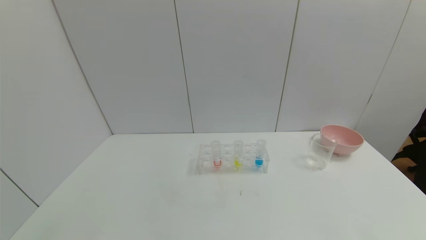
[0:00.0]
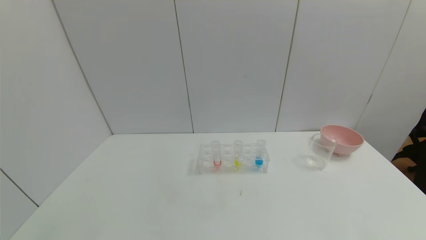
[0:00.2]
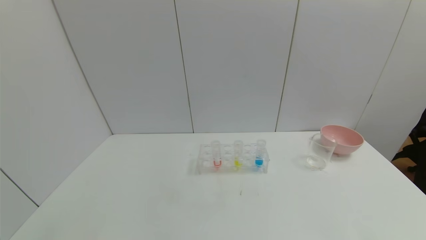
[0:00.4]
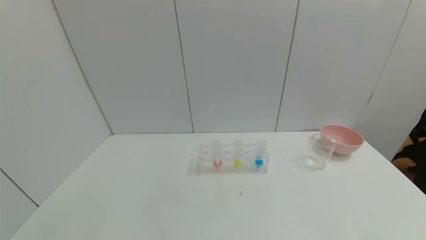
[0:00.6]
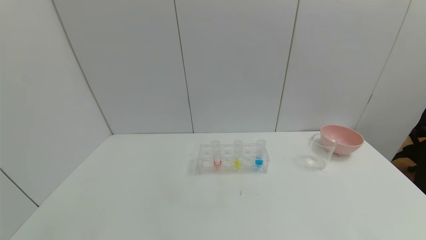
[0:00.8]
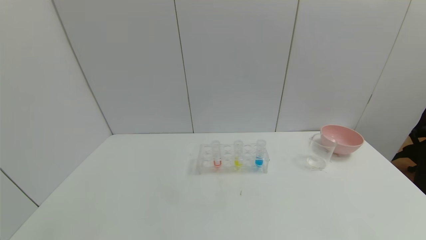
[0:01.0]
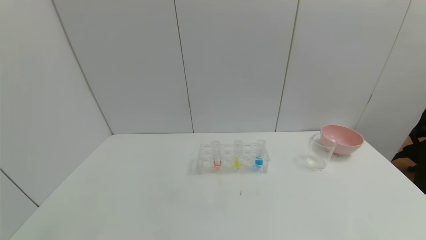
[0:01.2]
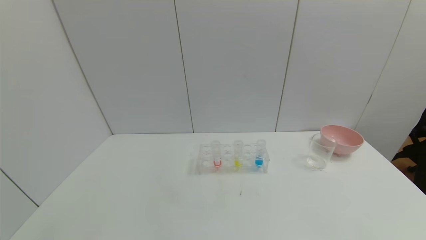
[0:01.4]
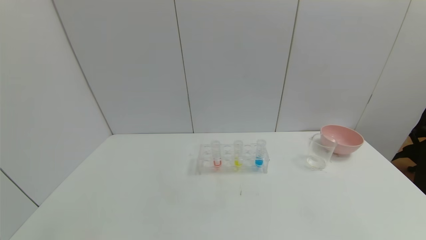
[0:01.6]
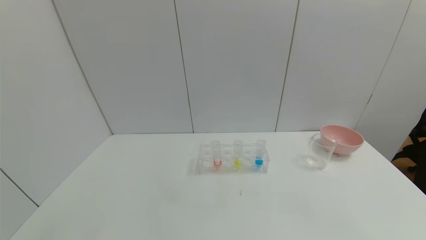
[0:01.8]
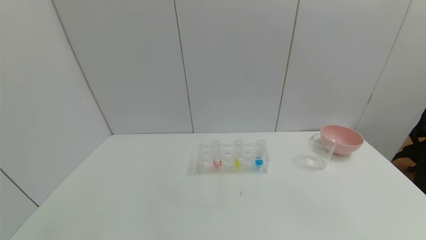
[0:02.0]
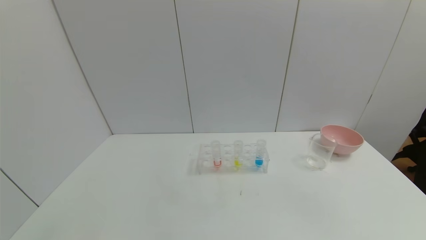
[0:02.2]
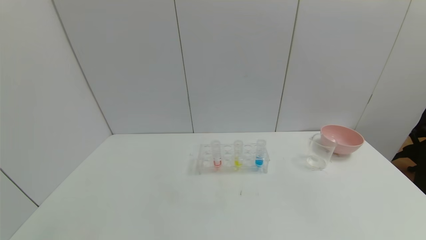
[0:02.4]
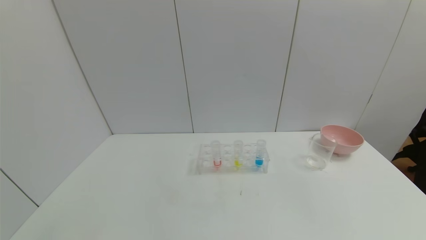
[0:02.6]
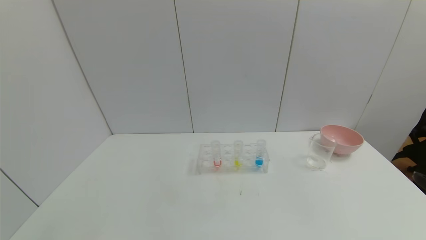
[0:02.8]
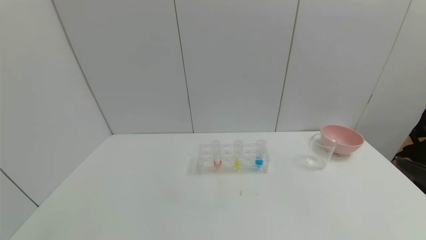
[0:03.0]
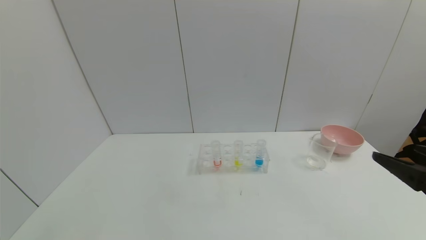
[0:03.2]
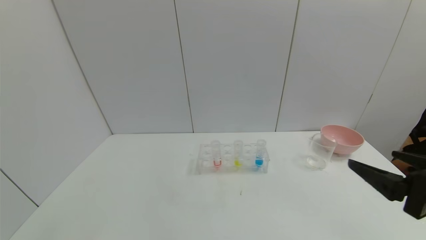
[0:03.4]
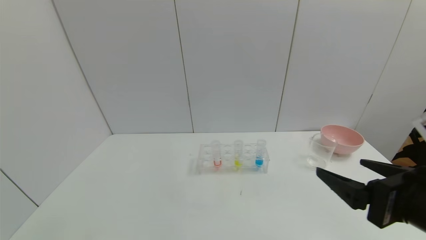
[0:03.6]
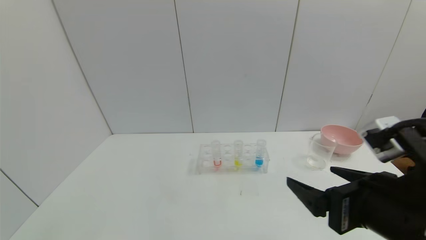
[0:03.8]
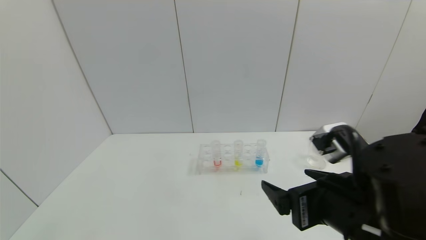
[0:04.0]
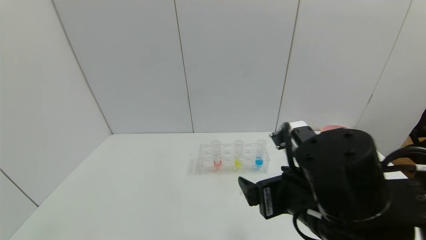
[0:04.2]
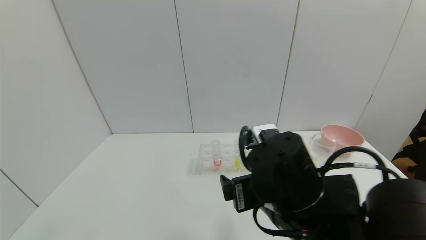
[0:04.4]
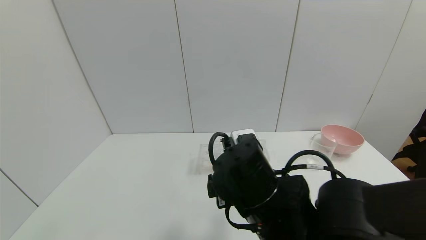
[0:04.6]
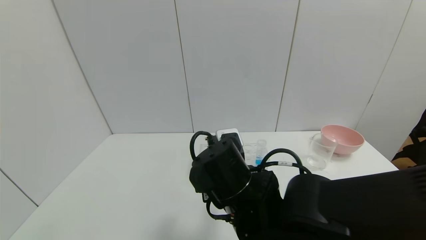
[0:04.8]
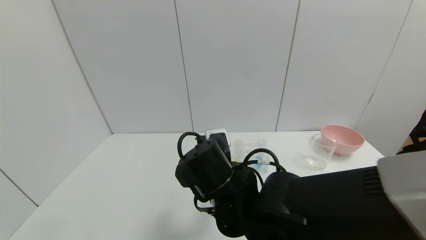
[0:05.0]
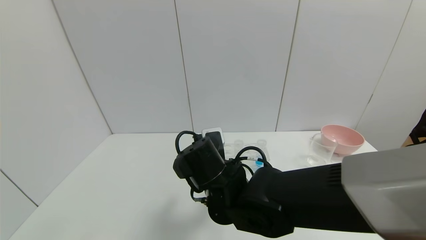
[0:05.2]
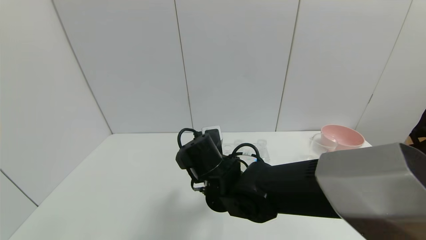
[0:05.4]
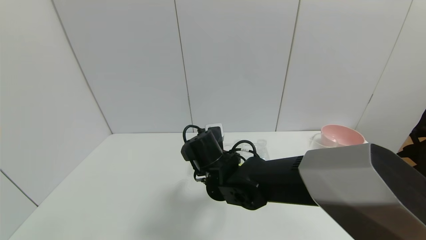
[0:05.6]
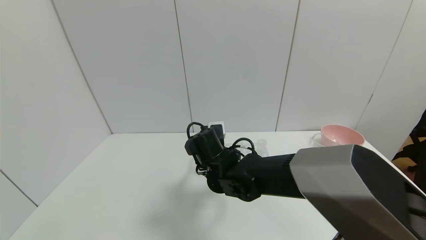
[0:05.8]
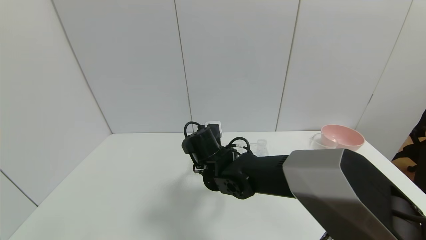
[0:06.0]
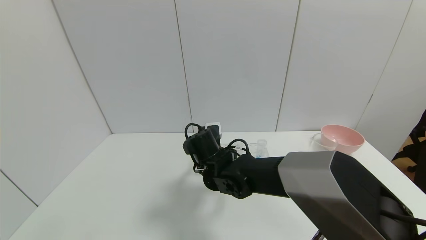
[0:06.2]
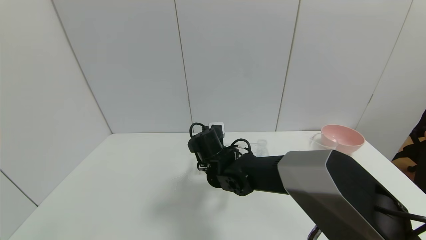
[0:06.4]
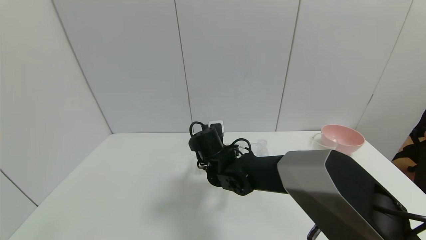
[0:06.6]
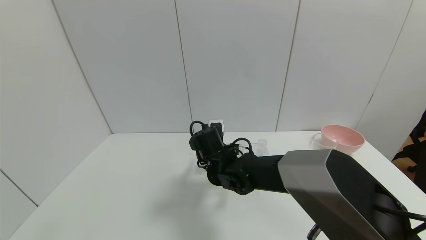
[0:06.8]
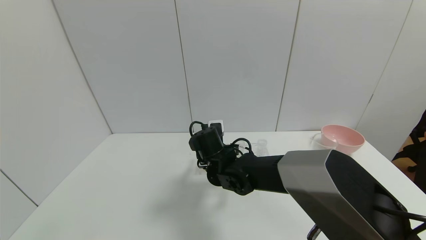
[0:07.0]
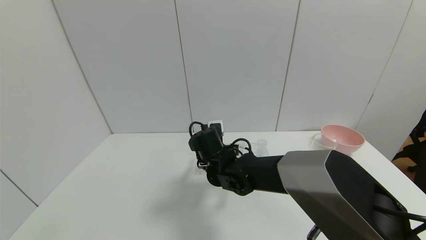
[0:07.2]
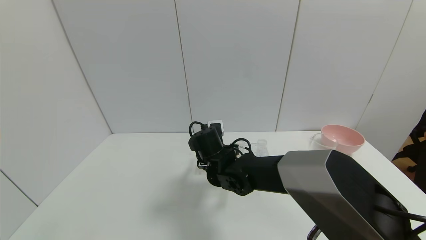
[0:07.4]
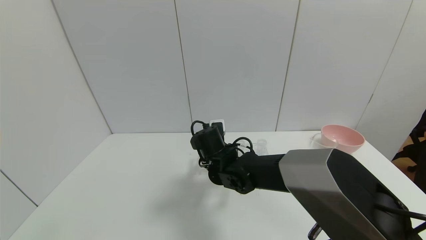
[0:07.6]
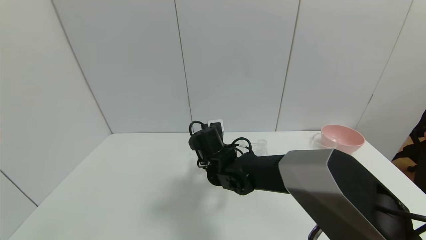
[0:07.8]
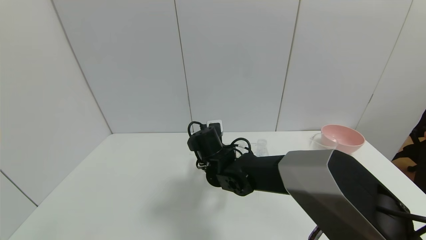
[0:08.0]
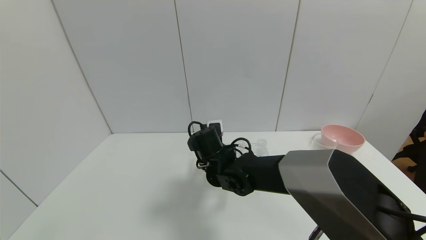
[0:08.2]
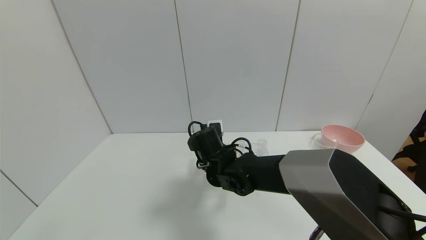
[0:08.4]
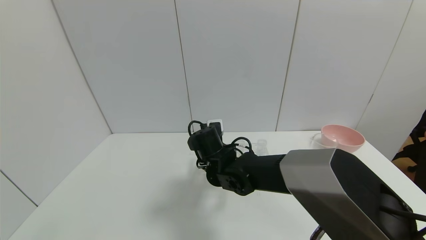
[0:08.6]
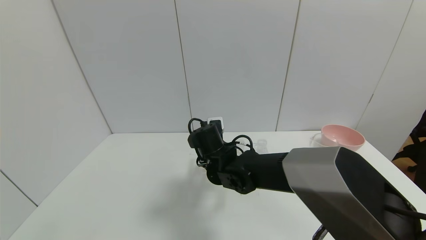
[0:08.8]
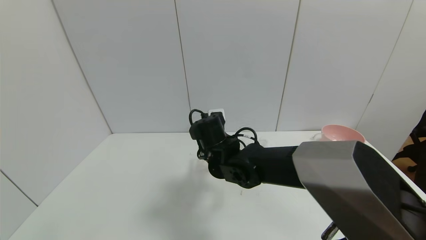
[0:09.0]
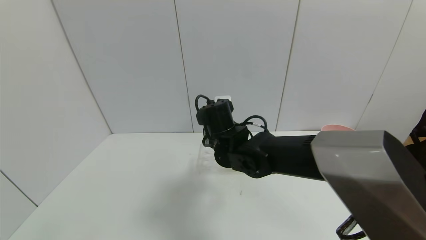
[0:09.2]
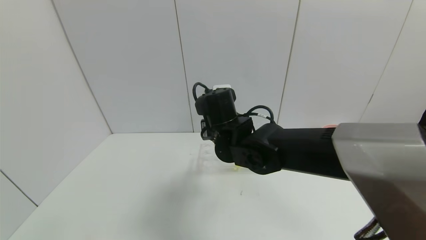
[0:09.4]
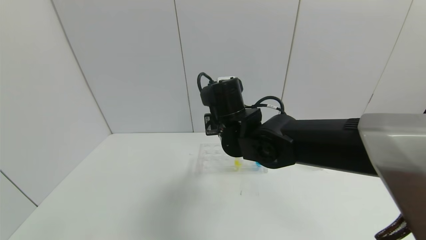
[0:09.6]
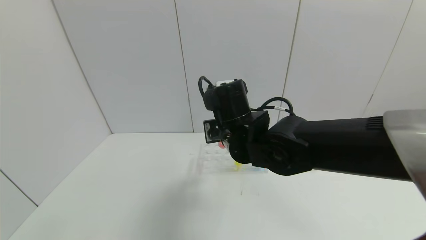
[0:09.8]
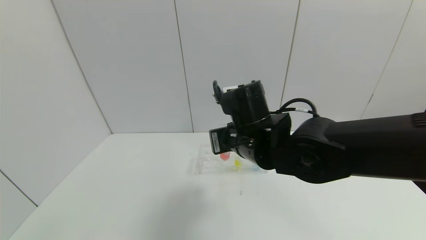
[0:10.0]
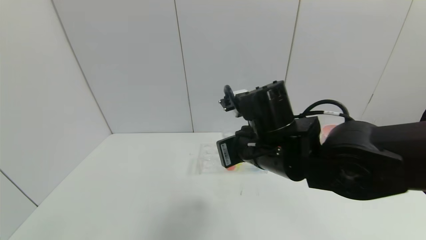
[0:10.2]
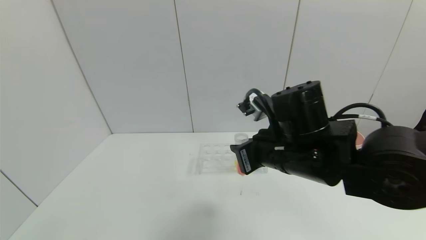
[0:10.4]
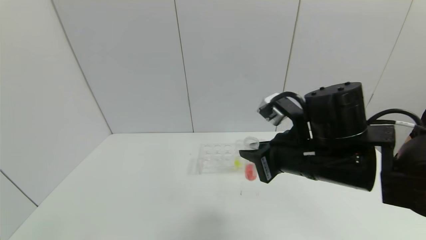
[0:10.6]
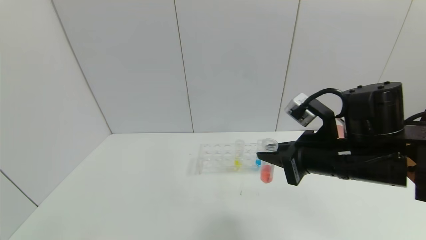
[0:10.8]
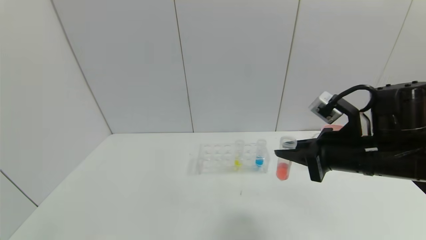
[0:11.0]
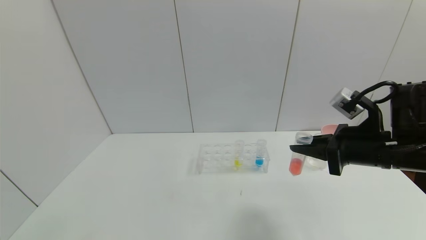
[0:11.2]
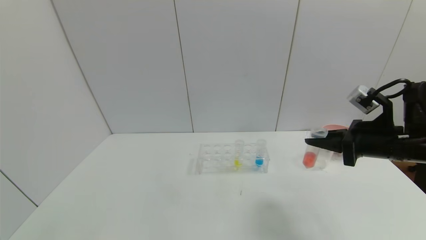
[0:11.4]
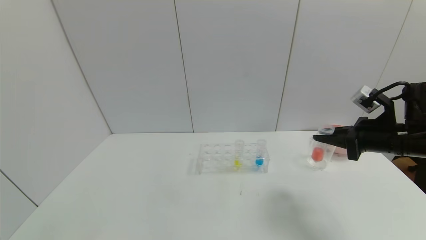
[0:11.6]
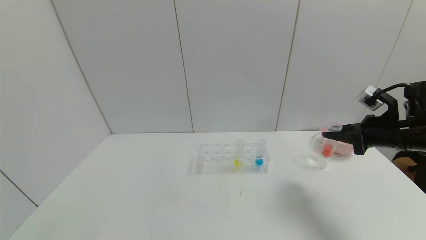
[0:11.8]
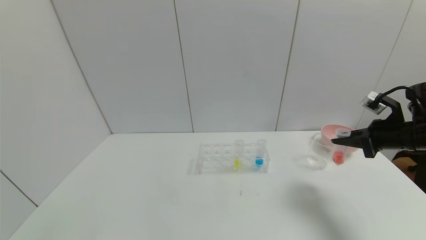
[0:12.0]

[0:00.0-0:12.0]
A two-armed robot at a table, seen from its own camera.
Task of the whole recording: pick up the test tube with yellow pigment and the test tube with red pigment by grippers and pour them into the beaker.
Step, 0:00.0 to 0:08.2: Grasp the red reagent with the right gripper.
0:03.0 to 0:04.4: The right gripper moves to the left, about 25 cm.
0:04.4 to 0:06.0: The right gripper travels forward, to the left and downward by about 20 cm.
0:06.0 to 0:07.6: The right gripper closes.
0:07.6 to 0:09.0: The right gripper closes its fingers.
0:09.0 to 0:10.4: The right gripper heads to the right, backward and upward, covering roughly 20 cm.
0:10.4 to 0:12.0: The right gripper goes roughly 30 cm to the right.

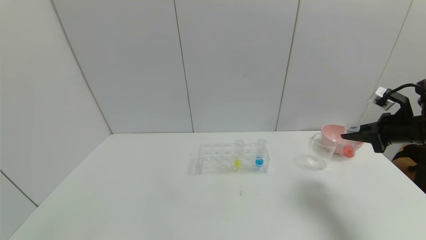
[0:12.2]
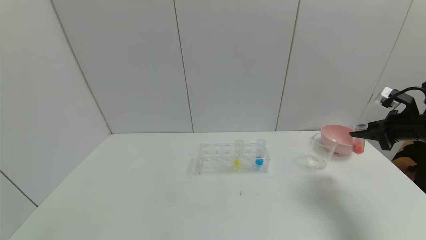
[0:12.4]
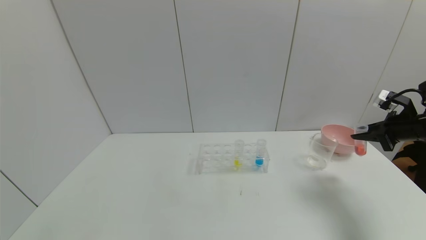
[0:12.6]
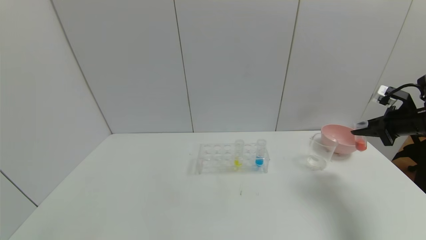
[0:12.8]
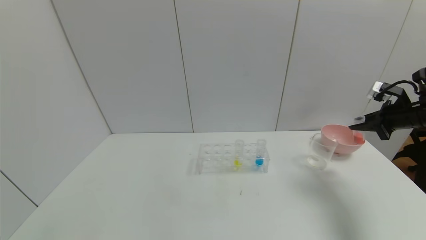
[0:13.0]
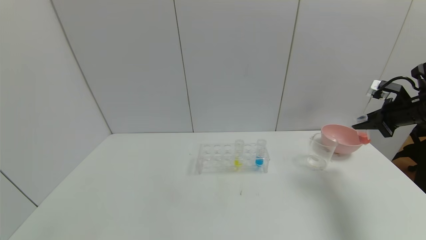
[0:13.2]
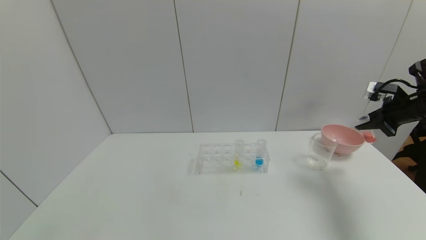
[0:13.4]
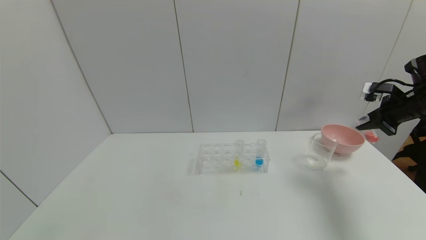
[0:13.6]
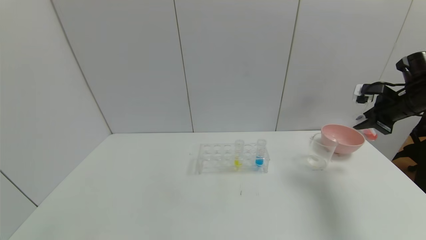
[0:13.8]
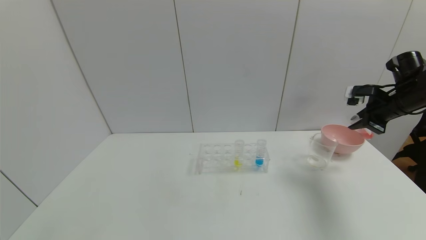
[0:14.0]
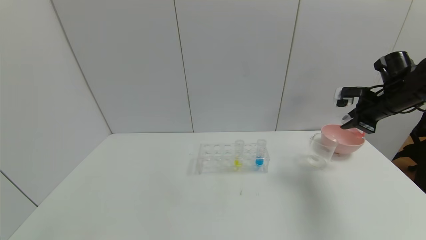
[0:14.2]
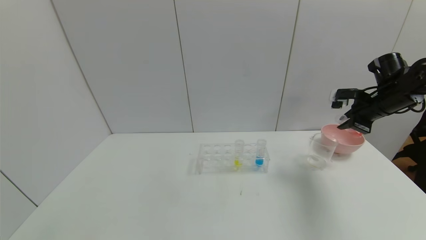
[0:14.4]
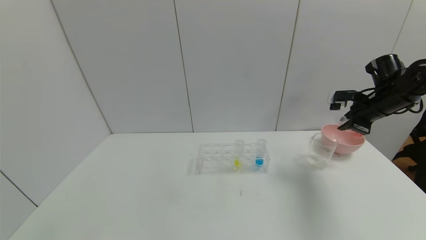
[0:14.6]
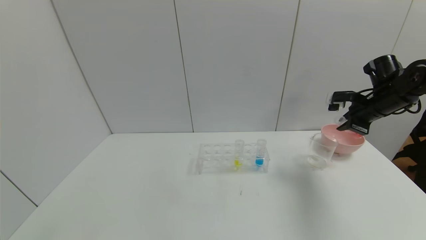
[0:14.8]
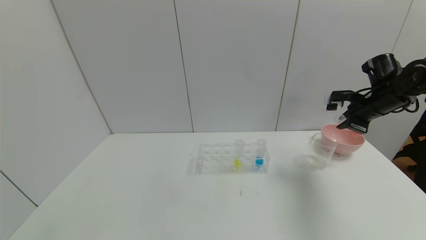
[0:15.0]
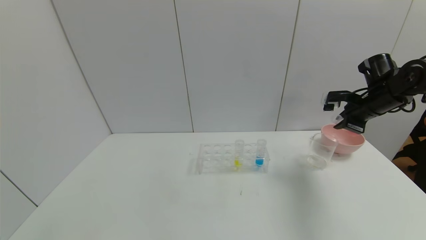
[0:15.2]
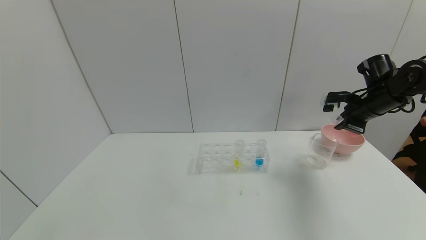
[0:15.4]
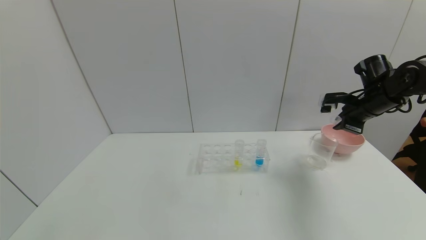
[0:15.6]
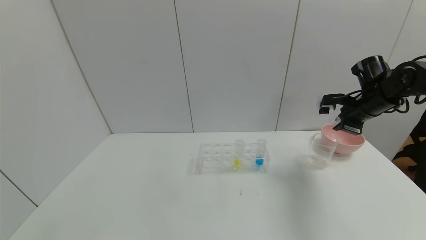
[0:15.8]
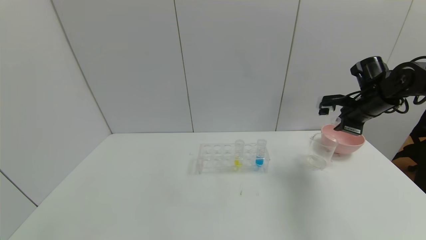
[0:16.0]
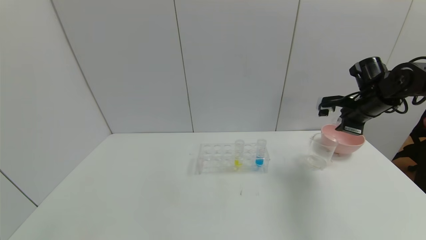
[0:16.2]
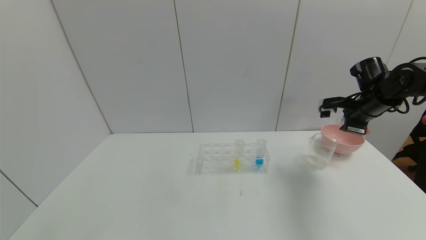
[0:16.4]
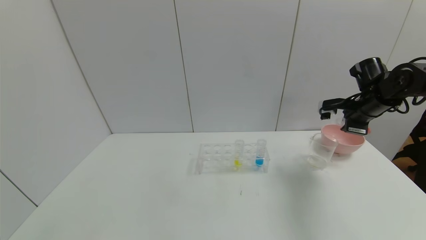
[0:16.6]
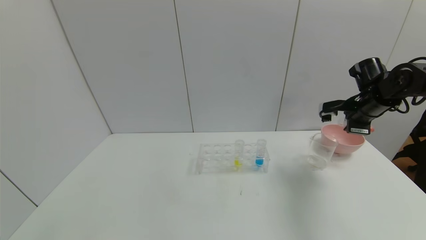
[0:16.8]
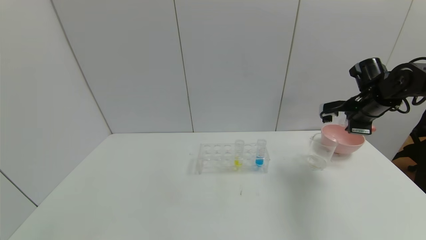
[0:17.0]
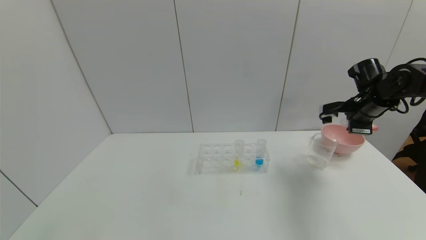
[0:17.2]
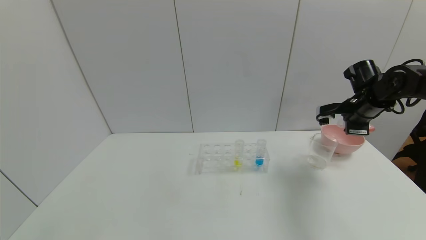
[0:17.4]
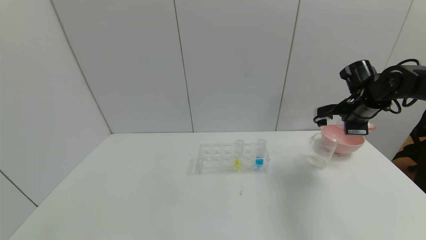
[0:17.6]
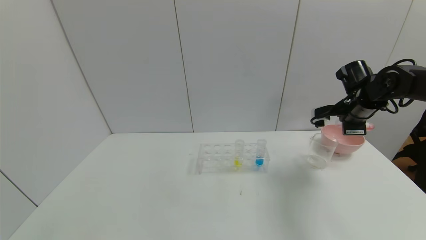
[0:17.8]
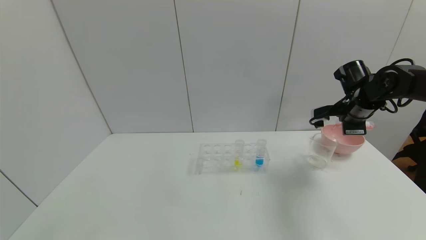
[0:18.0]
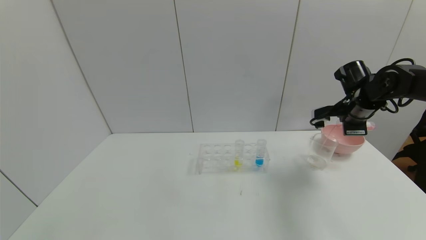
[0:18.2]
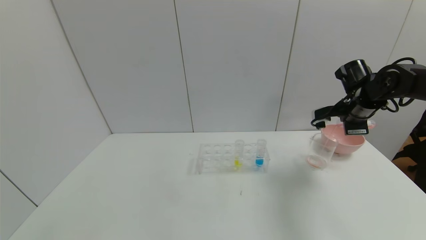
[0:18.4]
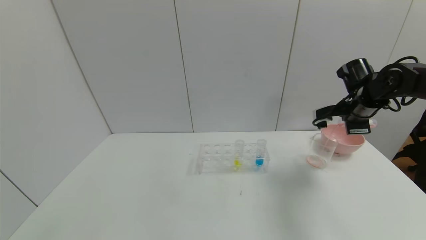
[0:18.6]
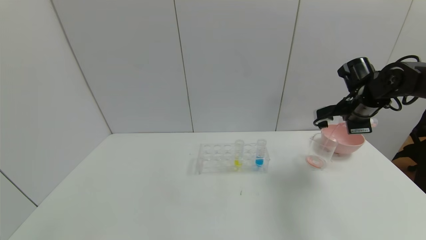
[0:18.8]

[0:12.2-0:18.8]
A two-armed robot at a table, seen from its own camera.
Task of the whole recording: pick up the test tube with yellow pigment and the test tube with red pigment by grippers and pour them into the beaker.
0:12.2 to 0:13.8: The right gripper is displaced forward by roughly 5 cm.
0:13.8 to 0:15.4: The right gripper travels to the left by about 5 cm.
0:17.2 to 0:18.8: The grippers stay close to where they were, moving slightly.
